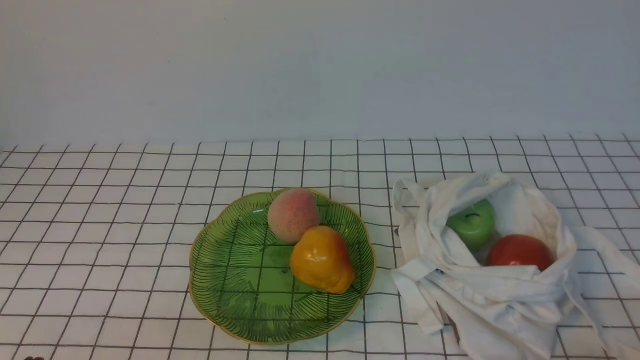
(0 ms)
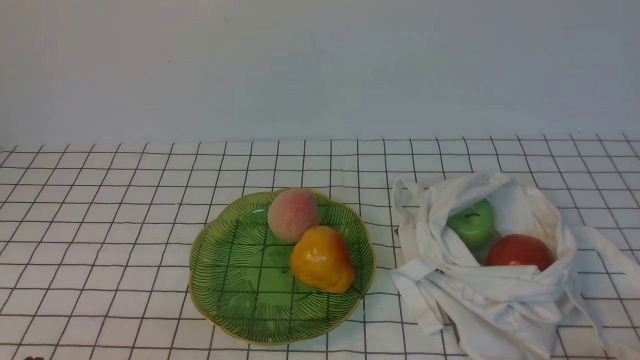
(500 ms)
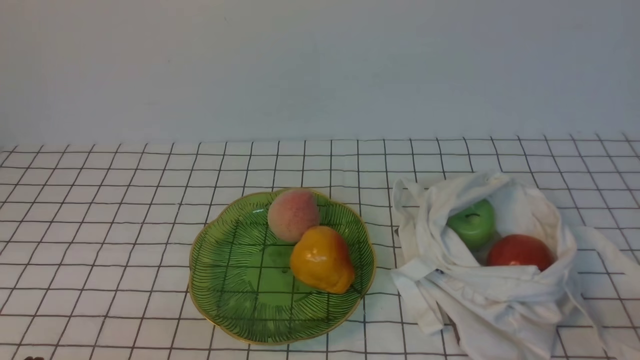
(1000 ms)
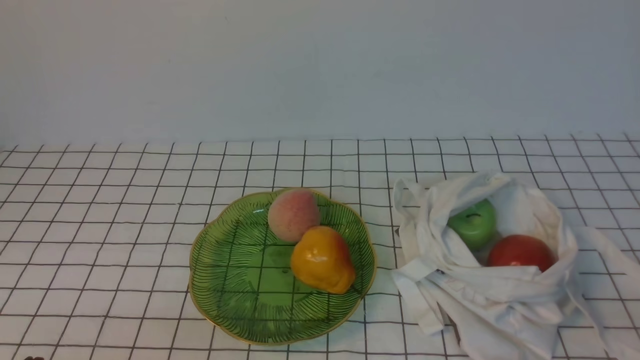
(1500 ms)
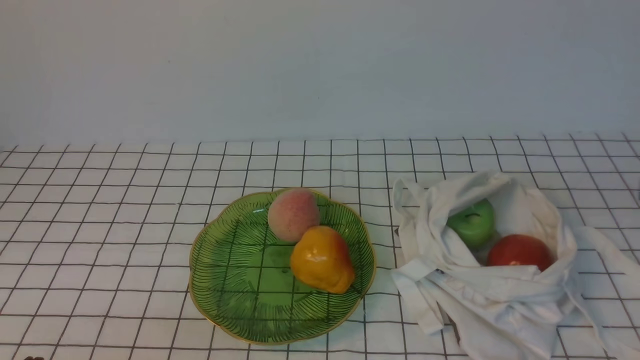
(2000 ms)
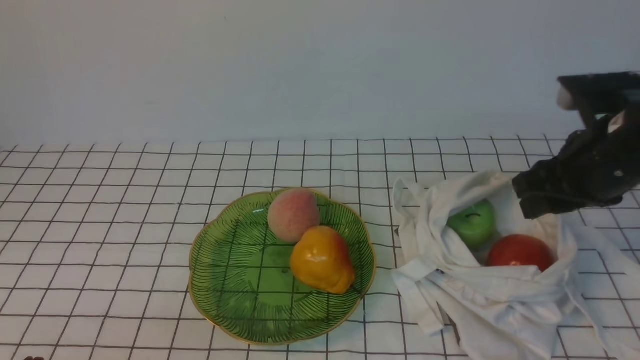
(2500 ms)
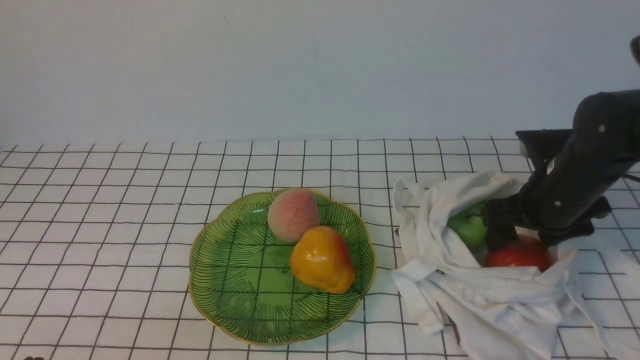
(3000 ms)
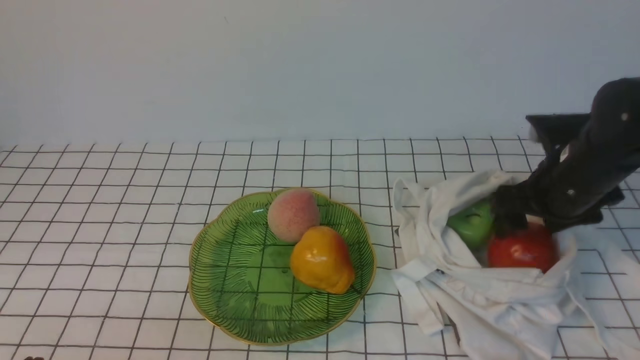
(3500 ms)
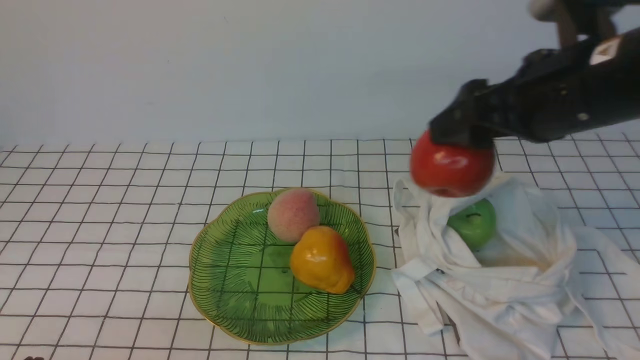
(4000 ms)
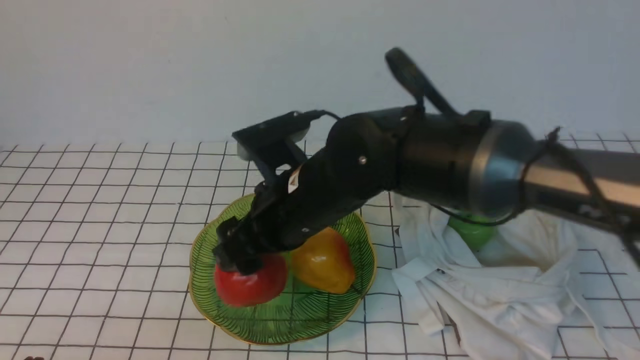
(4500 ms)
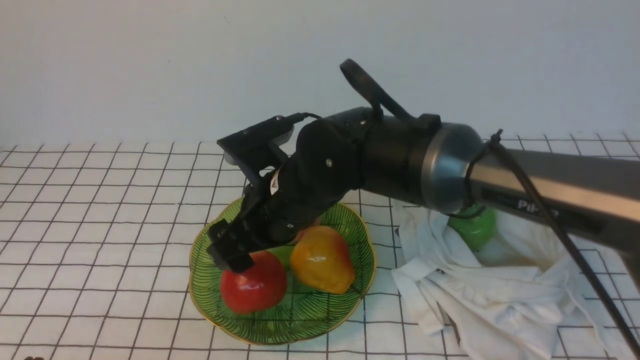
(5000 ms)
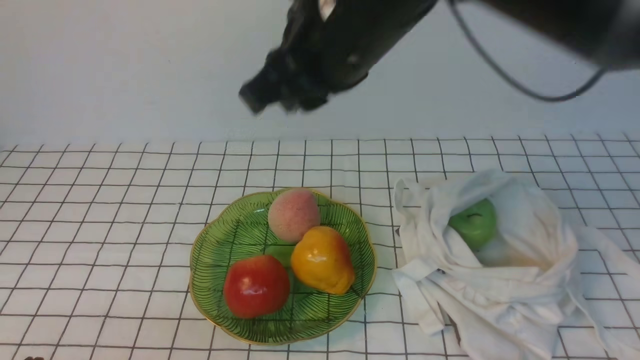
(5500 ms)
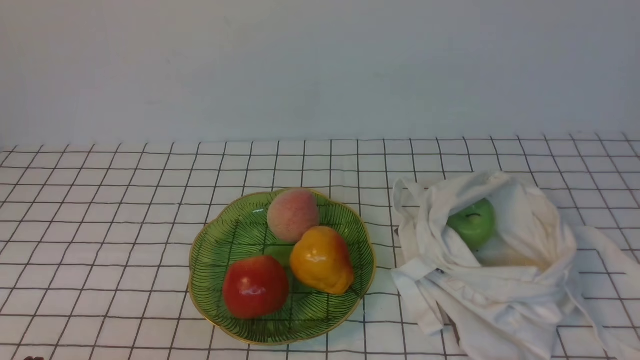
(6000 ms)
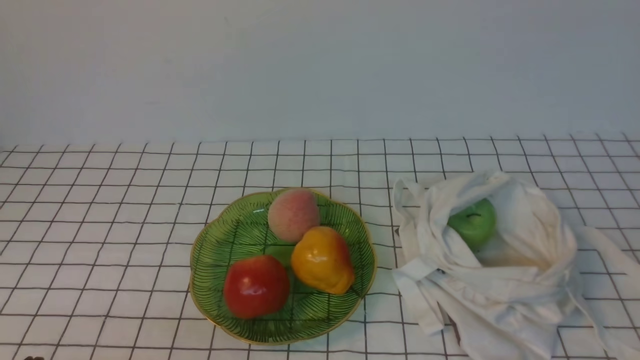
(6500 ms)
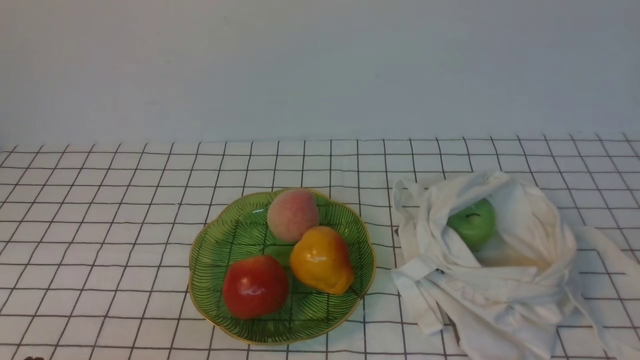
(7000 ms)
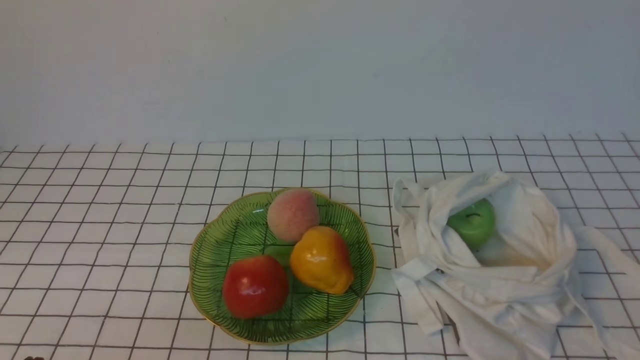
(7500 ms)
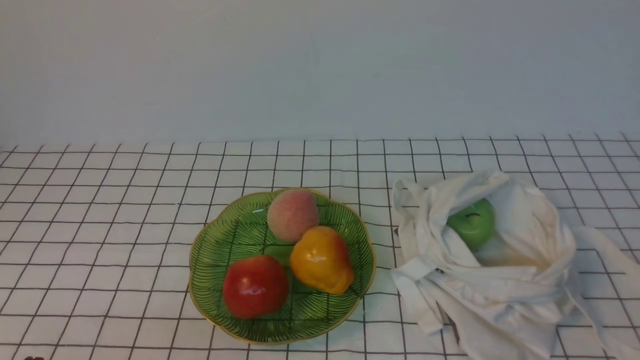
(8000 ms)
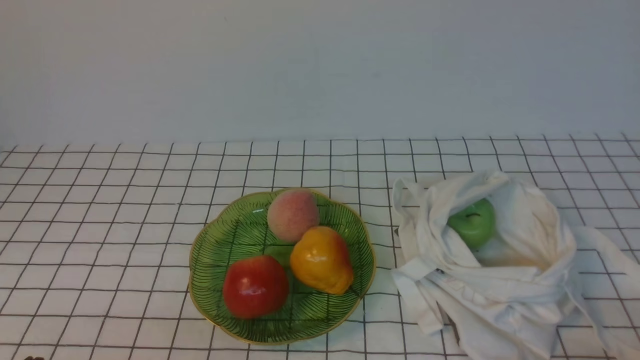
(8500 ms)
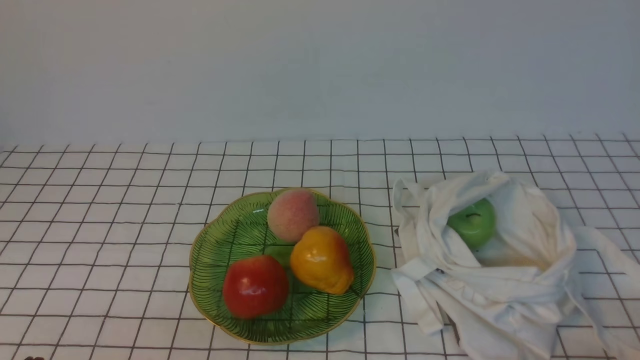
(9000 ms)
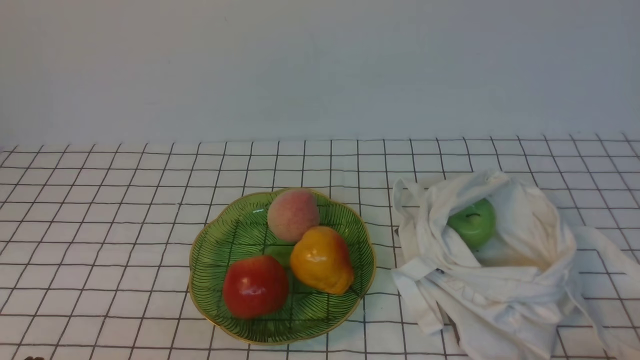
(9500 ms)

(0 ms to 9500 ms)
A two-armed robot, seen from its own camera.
Step, 0 ms - 3000 ms: use the right arm to grab an apple from the bag.
Step, 3500 ms - 5000 ms: use the right arm to put the apple into the empty plate on the left.
2000 ms - 4000 ms: The right gripper goes approximately 15 cm to the left and forward, and opens its fingers.
4000 ms - 5500 ms: The right gripper heads to the left and upward, covering roughly 15 cm, and closes its fingers.
5500 ms - 7500 ms: The right gripper travels to the right, backward and downward by approximately 40 cm.
